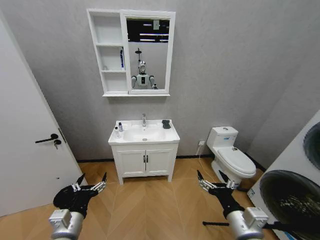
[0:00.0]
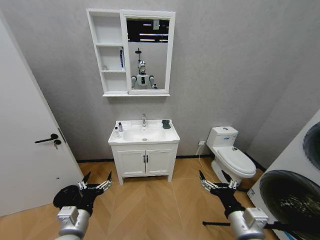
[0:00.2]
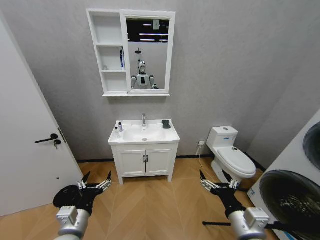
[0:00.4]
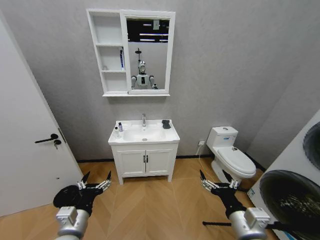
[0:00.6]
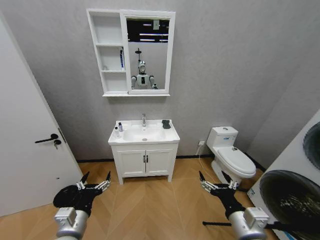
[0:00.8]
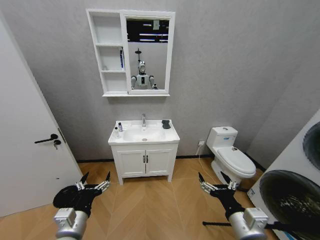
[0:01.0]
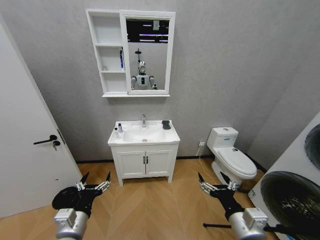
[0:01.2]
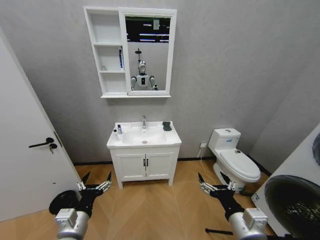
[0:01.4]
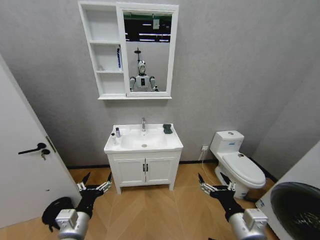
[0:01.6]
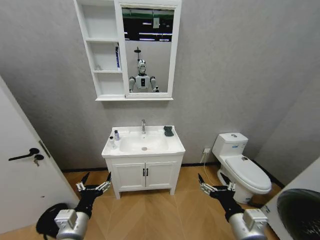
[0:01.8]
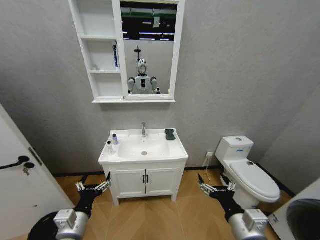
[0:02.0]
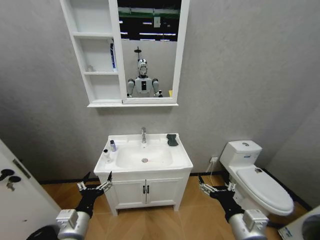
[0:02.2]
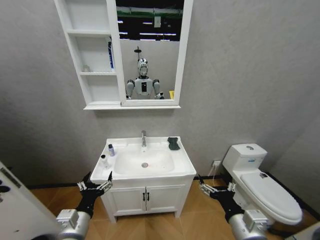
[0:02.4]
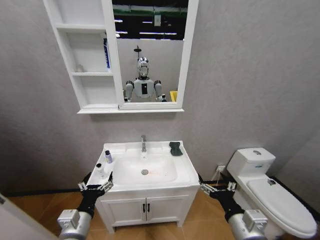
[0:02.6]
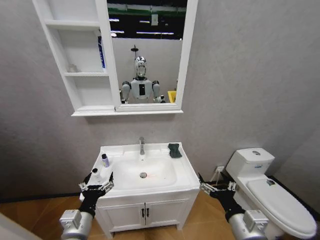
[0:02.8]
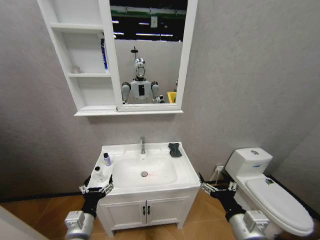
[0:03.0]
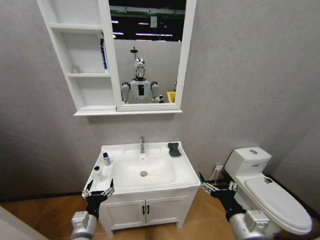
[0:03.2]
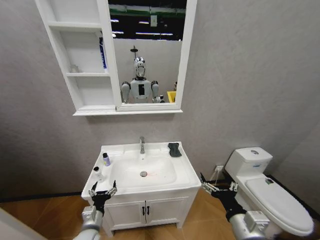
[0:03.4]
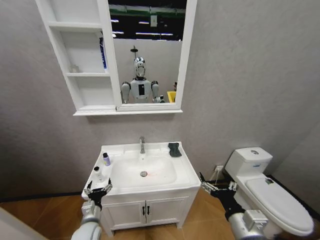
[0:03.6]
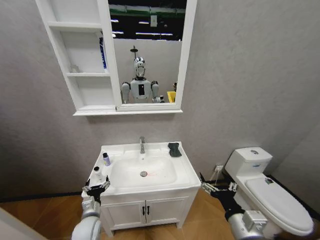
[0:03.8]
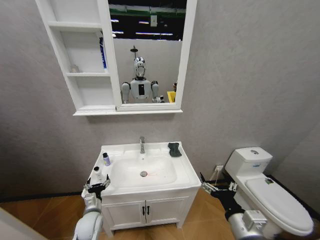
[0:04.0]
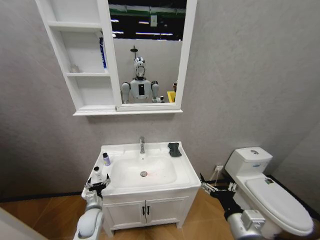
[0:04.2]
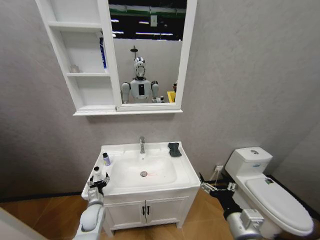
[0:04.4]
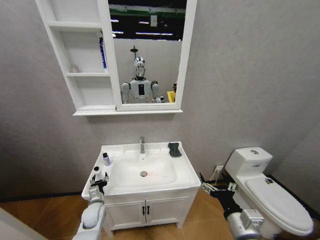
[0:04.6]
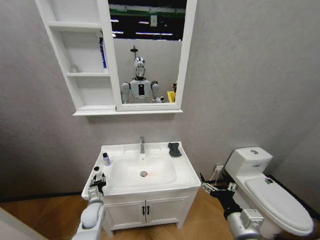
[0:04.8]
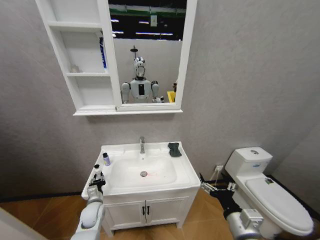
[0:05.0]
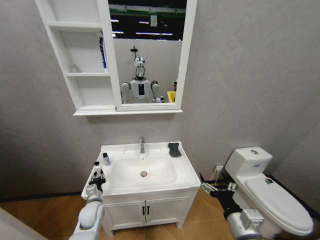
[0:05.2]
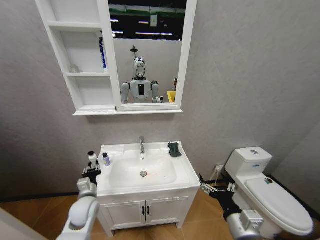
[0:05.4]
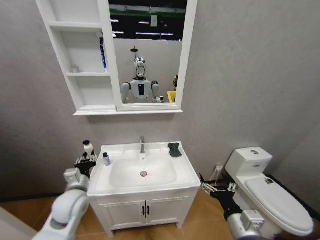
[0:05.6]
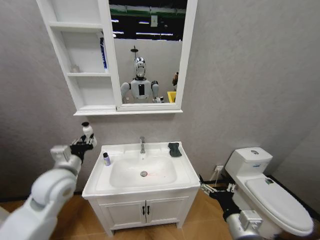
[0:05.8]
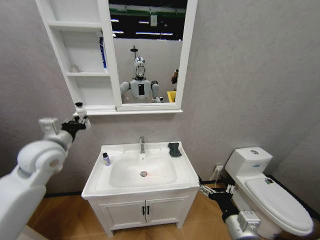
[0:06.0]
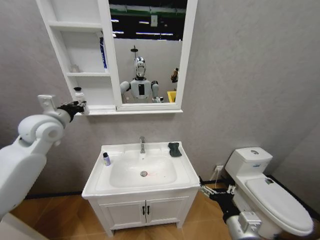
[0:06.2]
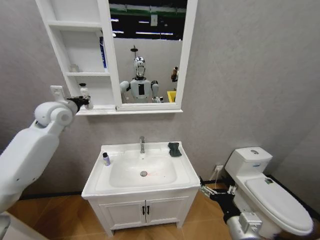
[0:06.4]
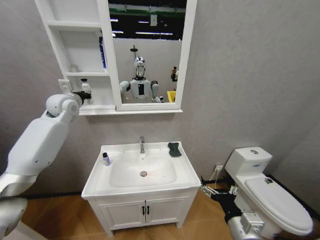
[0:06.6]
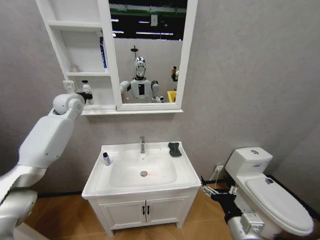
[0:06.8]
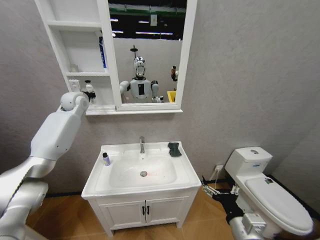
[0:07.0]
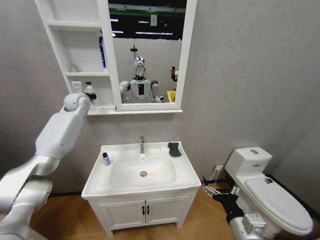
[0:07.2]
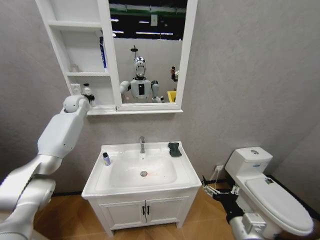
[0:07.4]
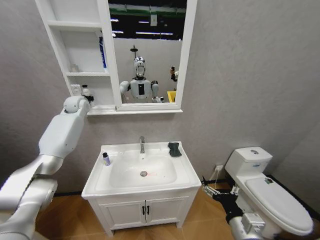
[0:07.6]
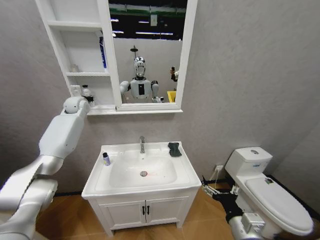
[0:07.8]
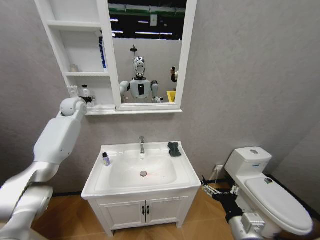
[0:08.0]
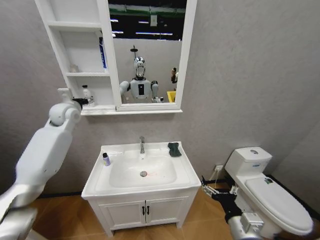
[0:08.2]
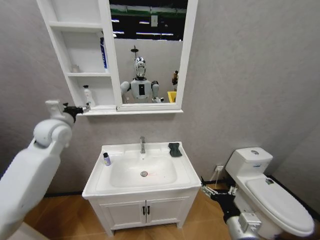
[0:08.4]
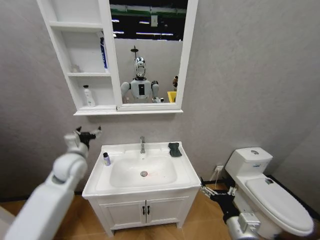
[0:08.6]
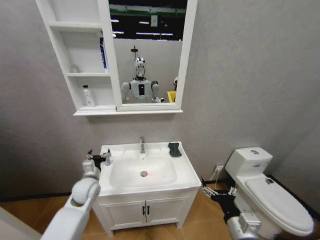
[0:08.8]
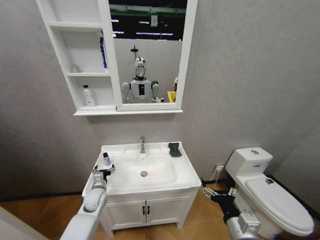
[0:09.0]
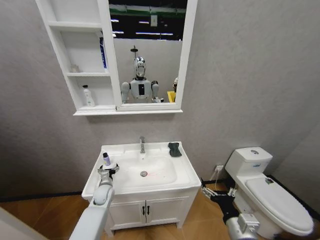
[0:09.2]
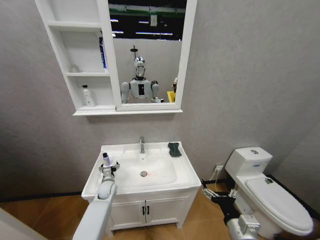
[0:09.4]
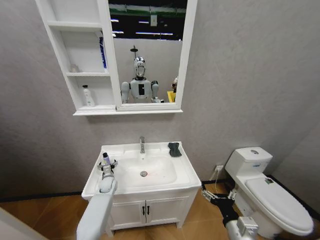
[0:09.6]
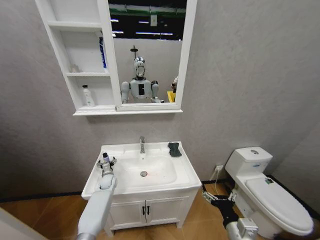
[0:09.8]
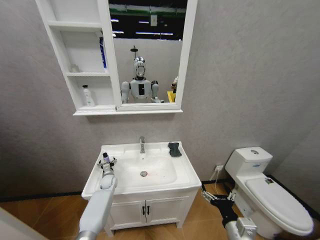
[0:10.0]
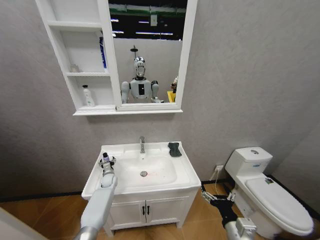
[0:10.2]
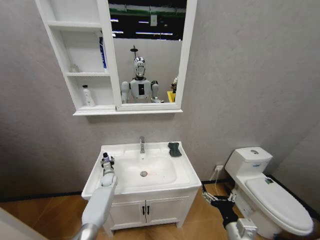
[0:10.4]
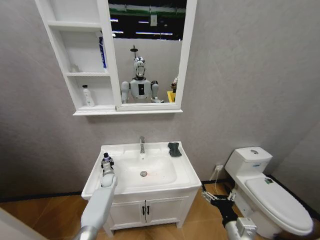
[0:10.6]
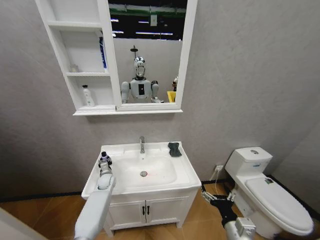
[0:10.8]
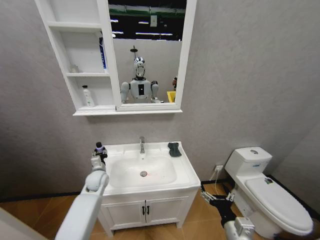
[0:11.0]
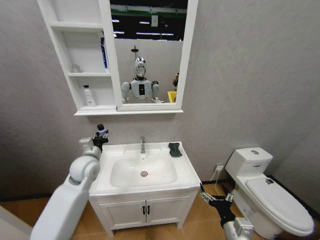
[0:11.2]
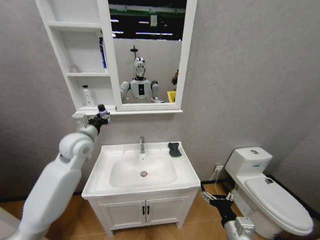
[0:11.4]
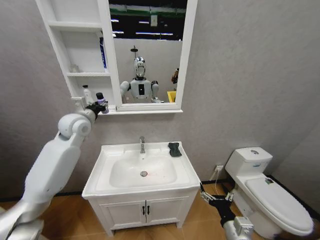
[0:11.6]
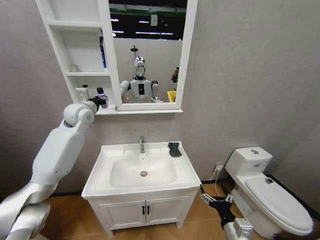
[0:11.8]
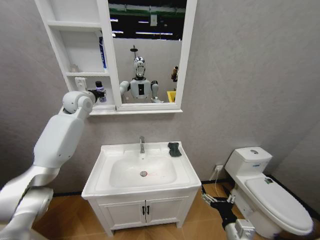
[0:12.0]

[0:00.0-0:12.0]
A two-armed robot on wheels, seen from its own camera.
Task of the whole recording: Move facial cleanser and shampoo from washbasin to cabinet, then wipe washbasin with towel.
0:03.0 to 0:04.4: The left gripper goes approximately 20 cm forward and downward.
0:04.4 to 0:06.0: The left gripper moves upward, about 35 cm, and closes.
0:06.0 to 0:07.6: The left gripper moves forward, roughly 25 cm.
0:07.6 to 0:09.0: The left gripper heads downward and backward, covering approximately 40 cm, and opens up.
0:09.0 to 0:10.4: The left gripper goes some 15 cm forward and downward, and closes up.
0:10.4 to 0:12.0: The left gripper travels upward by about 50 cm.

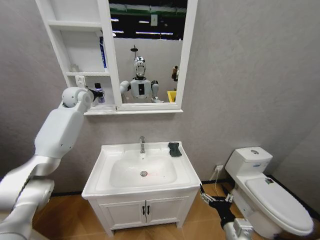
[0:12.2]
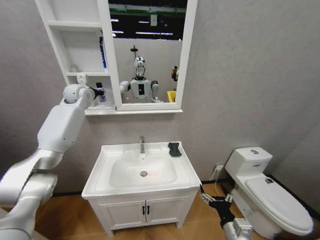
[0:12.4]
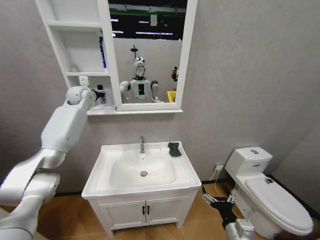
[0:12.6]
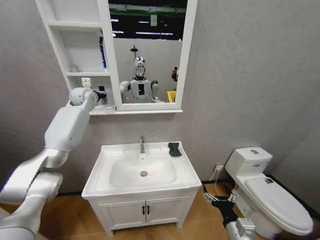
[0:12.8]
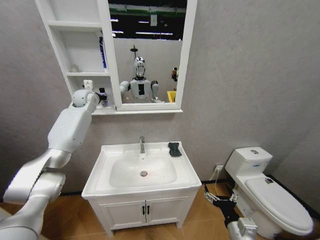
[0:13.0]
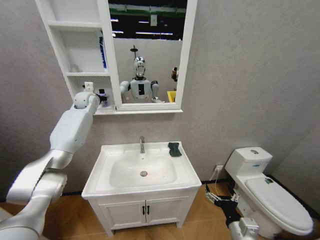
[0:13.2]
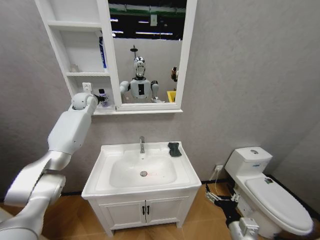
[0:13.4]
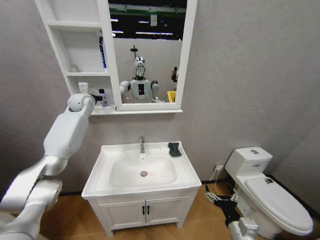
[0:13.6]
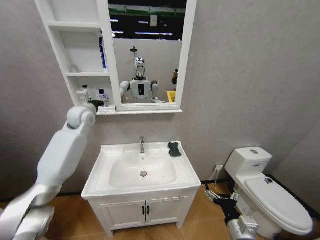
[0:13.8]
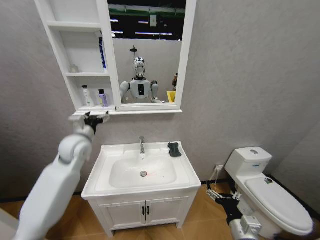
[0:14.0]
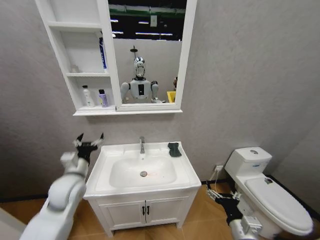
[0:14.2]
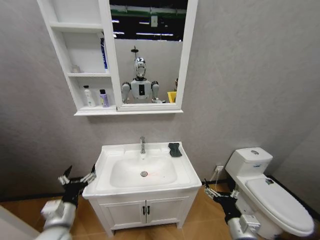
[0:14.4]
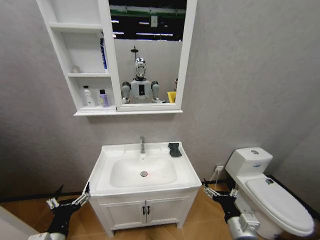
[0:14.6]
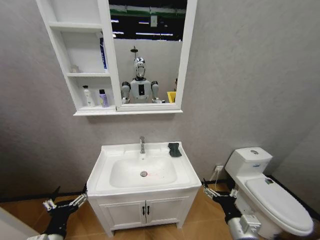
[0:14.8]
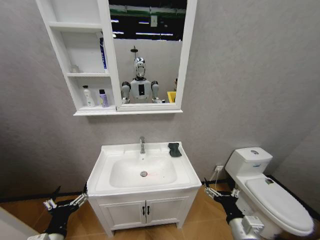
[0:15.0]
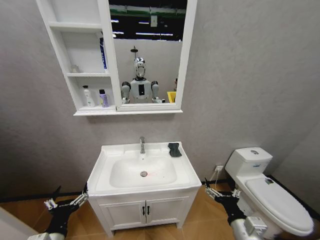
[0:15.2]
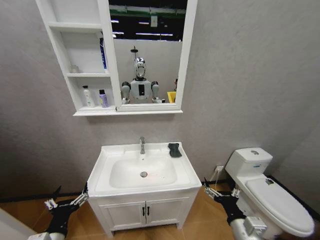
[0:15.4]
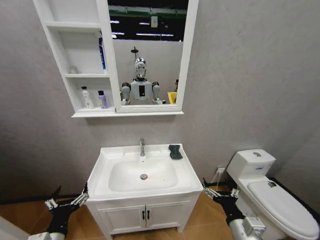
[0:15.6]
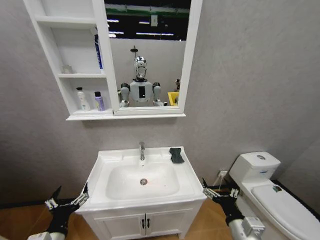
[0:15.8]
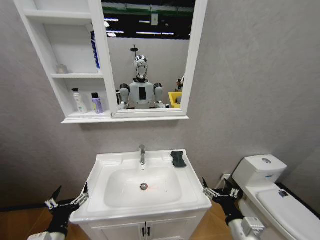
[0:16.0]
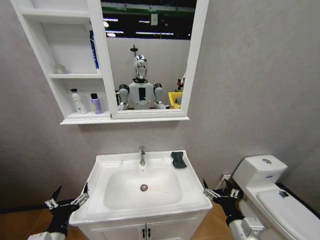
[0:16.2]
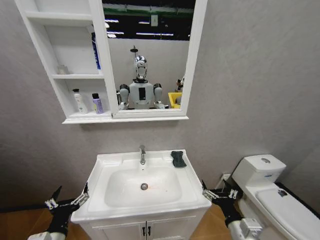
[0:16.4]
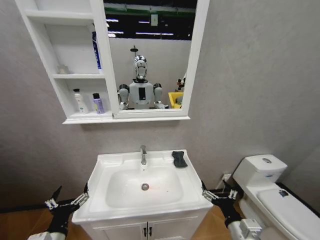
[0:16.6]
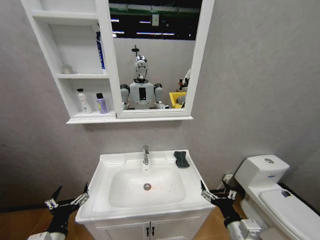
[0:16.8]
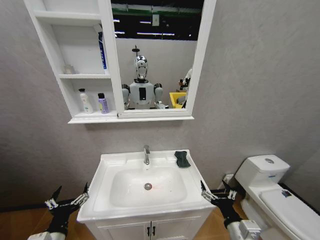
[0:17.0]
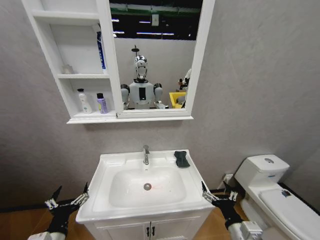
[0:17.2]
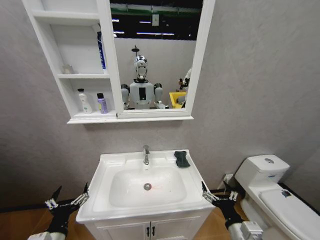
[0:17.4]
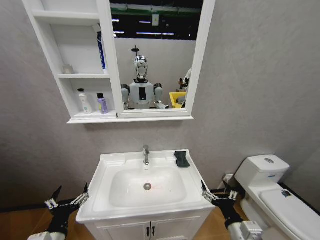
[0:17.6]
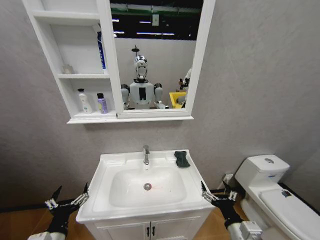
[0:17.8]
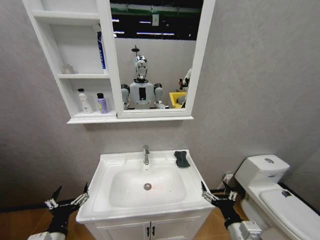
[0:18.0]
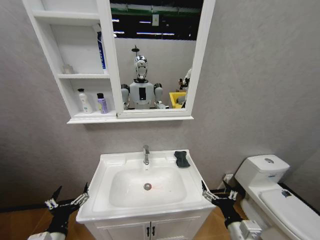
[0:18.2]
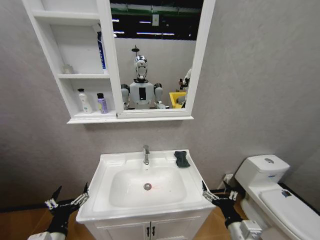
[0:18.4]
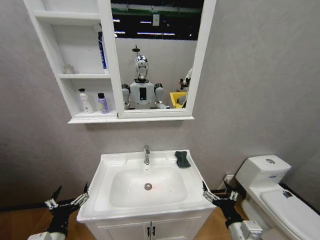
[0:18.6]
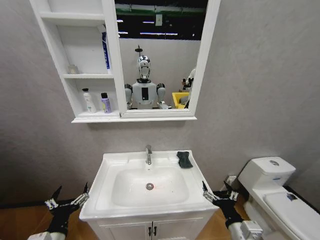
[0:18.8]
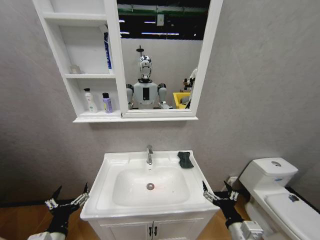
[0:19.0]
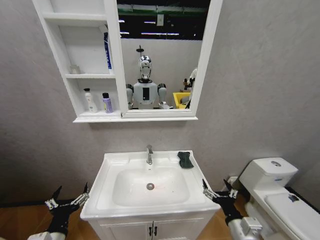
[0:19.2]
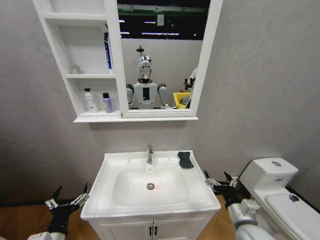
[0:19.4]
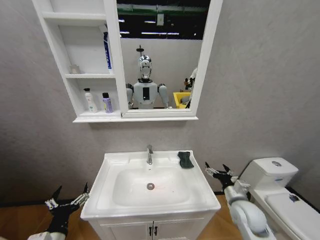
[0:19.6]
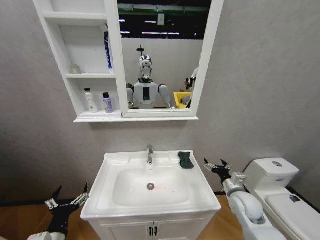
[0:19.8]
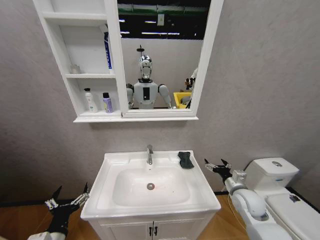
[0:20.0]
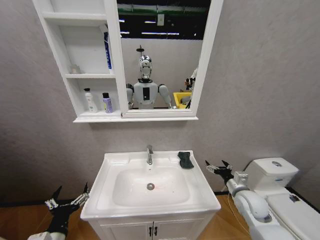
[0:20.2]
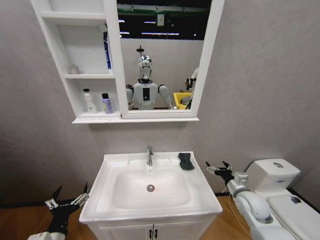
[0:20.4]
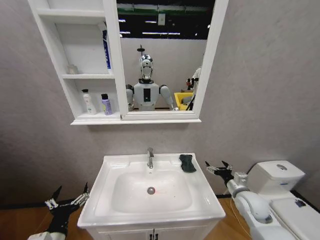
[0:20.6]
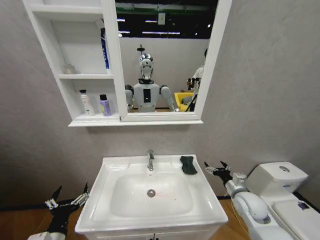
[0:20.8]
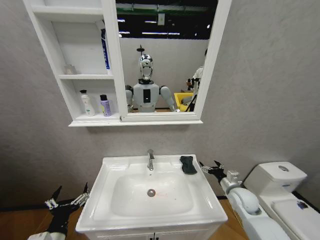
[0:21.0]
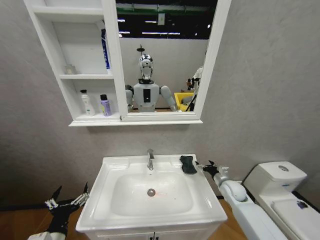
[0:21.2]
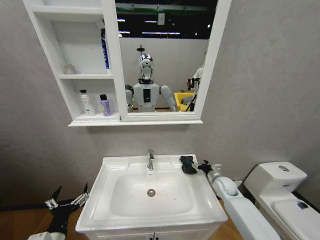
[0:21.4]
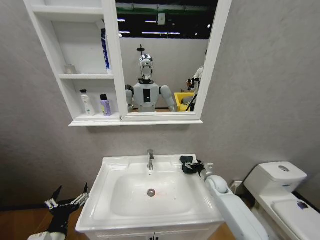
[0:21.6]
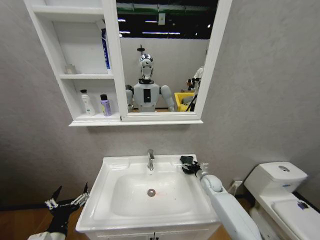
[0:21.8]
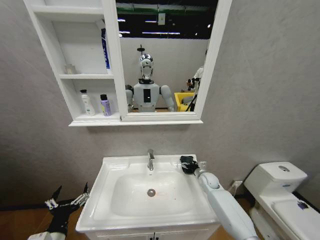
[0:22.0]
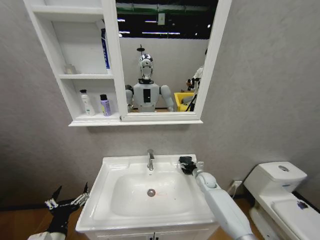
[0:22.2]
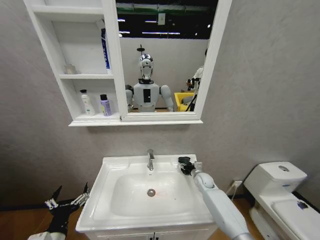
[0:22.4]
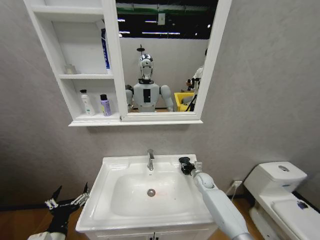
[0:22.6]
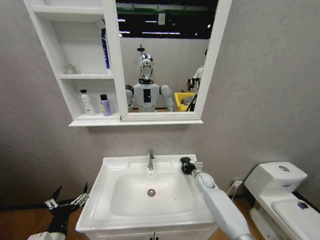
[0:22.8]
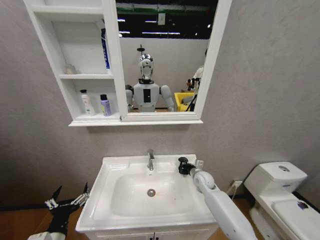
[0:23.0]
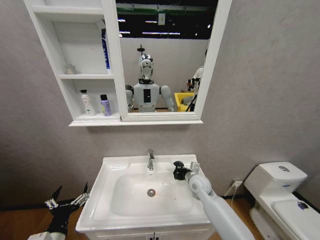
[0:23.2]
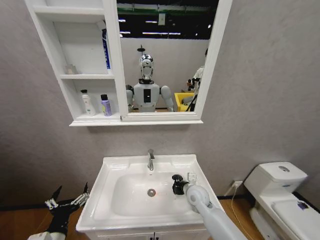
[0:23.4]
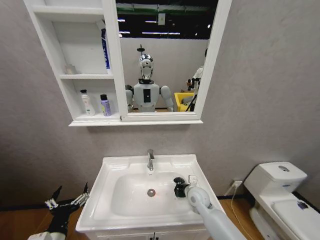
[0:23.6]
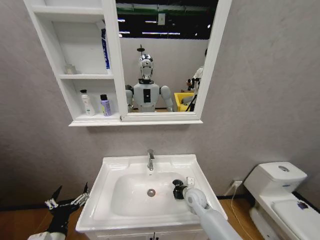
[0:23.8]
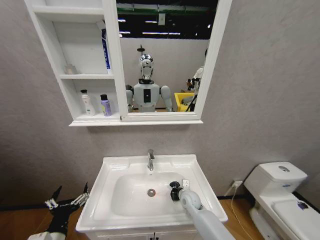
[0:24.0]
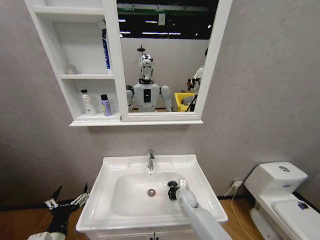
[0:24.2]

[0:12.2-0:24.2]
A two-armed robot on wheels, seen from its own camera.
Task of the whole recording: Move facial cleanser and shampoo from washbasin to cabinet, then wipe washbasin with towel.
0:12.2 to 0:13.8: The left gripper moves downward, approximately 5 cm, and opens its fingers.
0:13.8 to 0:15.2: The left gripper goes some 50 cm backward and downward.
0:16.6 to 0:18.2: Both grippers stay about where they are.
0:18.2 to 0:19.8: The right gripper shifts about 20 cm forward and to the right.
0:19.8 to 0:21.2: The right gripper goes about 10 cm forward.
0:21.2 to 0:22.6: The right gripper is displaced forward and to the left by about 15 cm, and closes up.
0:22.6 to 0:24.2: The right gripper heads to the left and backward, covering about 15 cm, and closes up.
